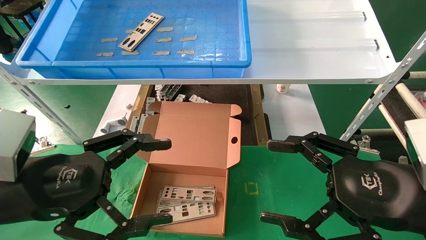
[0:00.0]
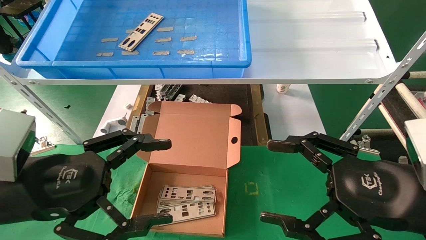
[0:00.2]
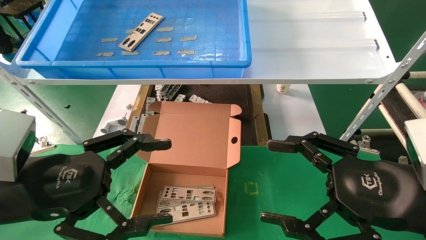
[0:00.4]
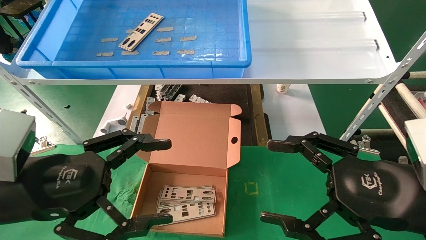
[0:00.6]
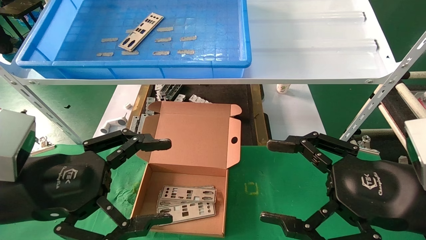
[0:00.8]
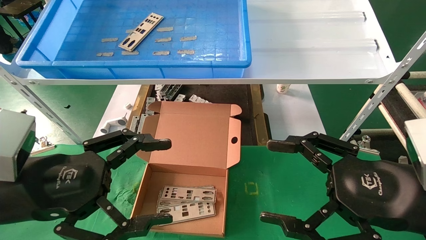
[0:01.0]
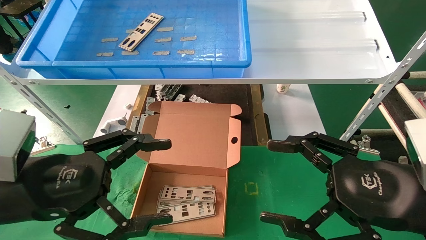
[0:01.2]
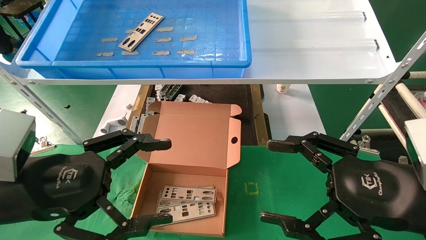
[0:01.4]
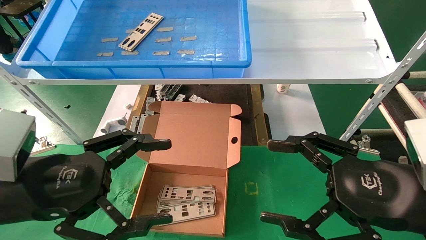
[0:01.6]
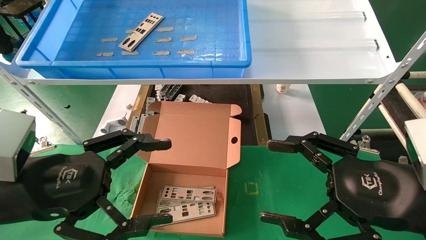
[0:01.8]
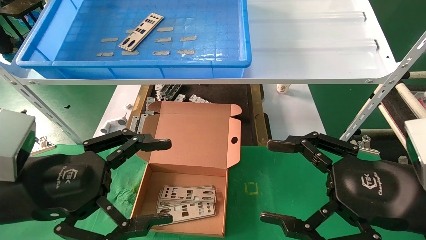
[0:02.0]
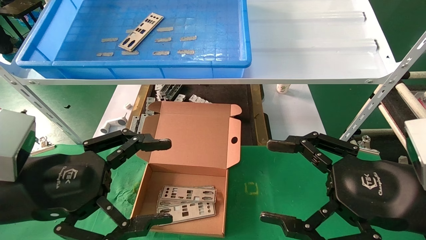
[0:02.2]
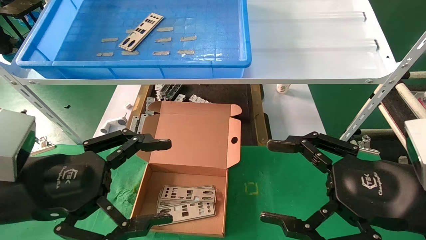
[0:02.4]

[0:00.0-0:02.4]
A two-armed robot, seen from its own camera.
Task of the whole recording: pick up the parts on the tray and put them in the cardboard box.
0:00.0 to 0:02.4: Both grippers stay about where they are.
